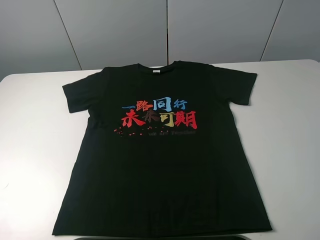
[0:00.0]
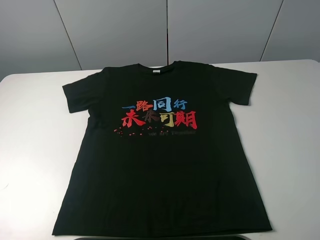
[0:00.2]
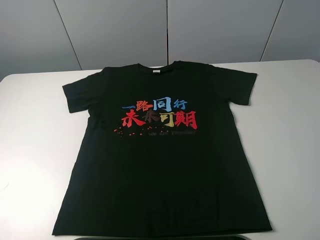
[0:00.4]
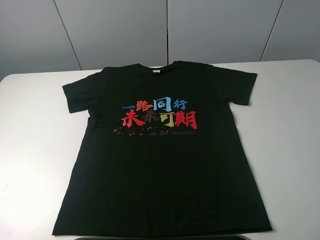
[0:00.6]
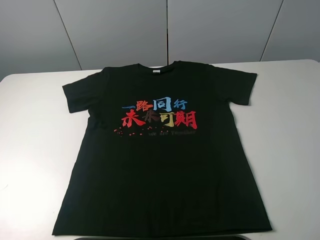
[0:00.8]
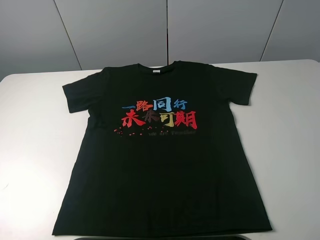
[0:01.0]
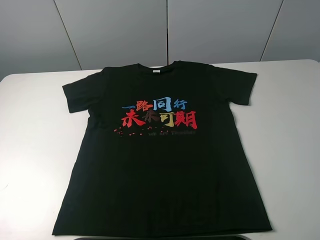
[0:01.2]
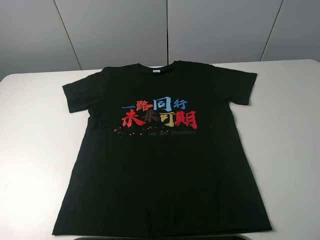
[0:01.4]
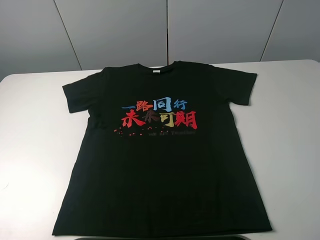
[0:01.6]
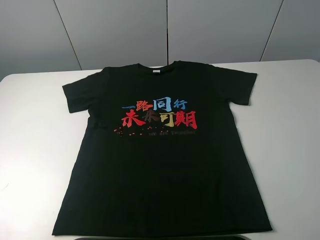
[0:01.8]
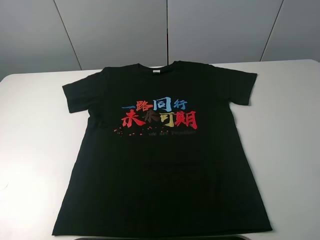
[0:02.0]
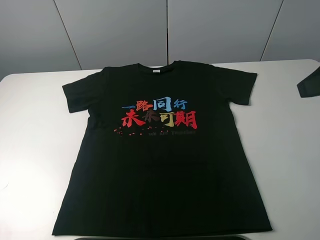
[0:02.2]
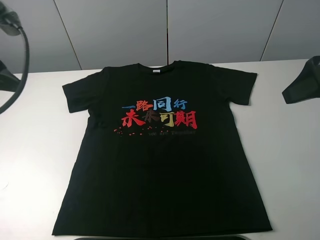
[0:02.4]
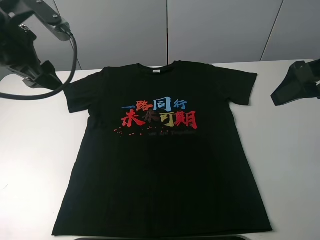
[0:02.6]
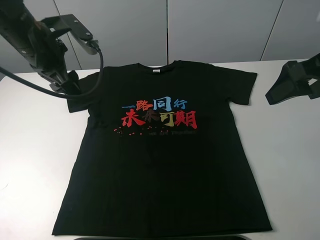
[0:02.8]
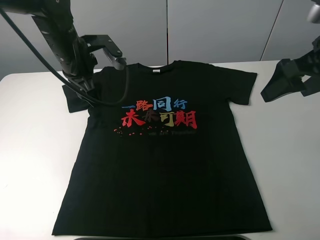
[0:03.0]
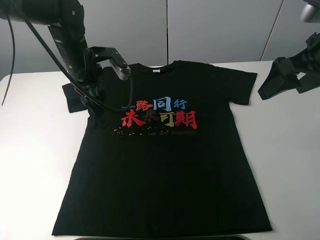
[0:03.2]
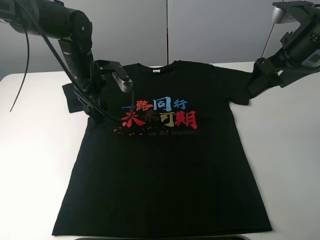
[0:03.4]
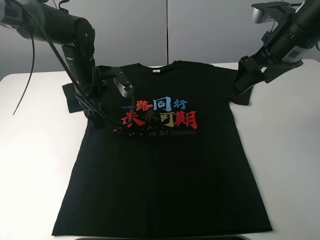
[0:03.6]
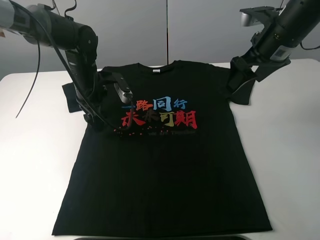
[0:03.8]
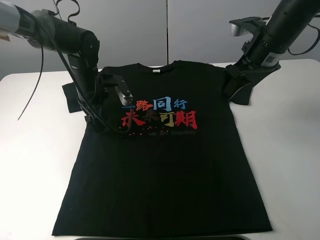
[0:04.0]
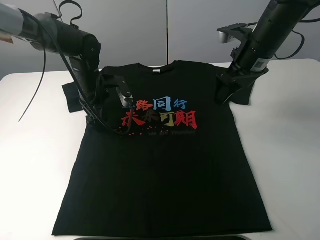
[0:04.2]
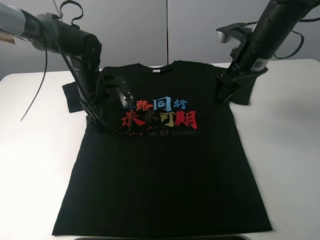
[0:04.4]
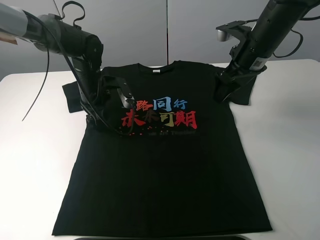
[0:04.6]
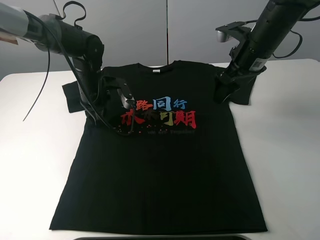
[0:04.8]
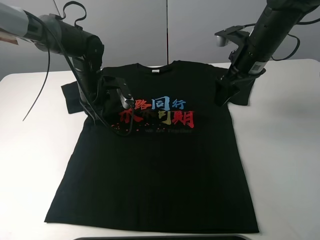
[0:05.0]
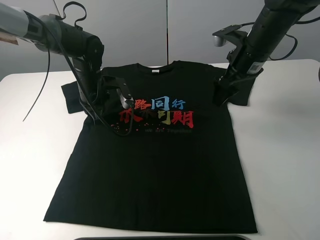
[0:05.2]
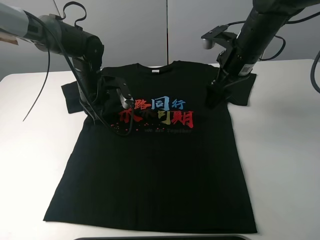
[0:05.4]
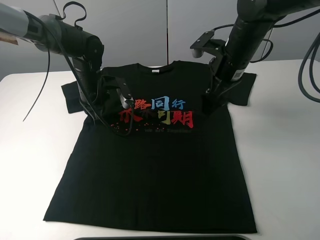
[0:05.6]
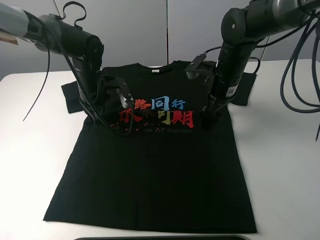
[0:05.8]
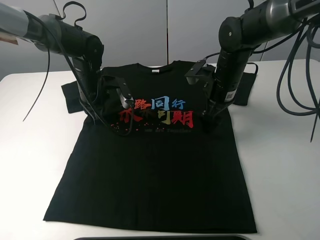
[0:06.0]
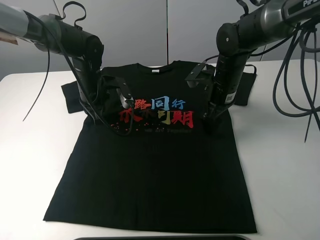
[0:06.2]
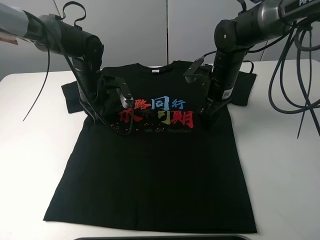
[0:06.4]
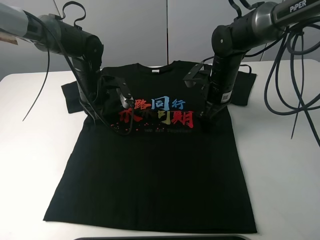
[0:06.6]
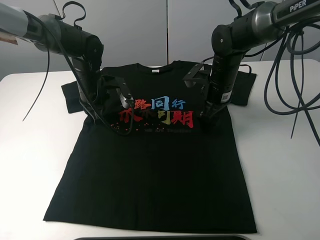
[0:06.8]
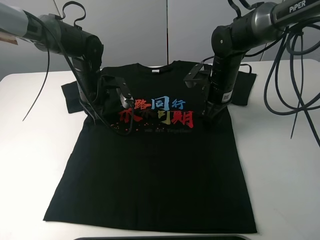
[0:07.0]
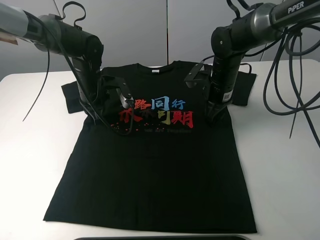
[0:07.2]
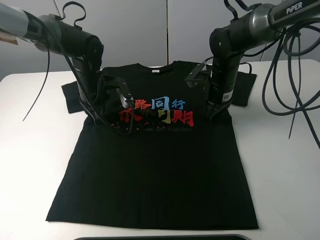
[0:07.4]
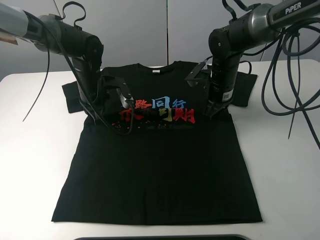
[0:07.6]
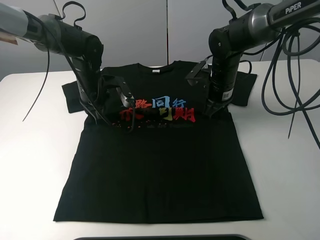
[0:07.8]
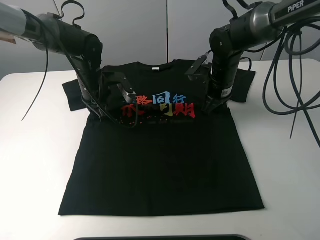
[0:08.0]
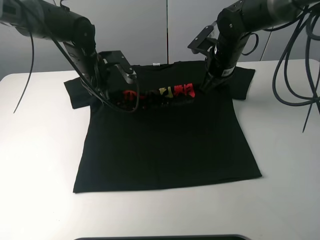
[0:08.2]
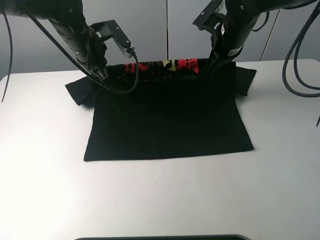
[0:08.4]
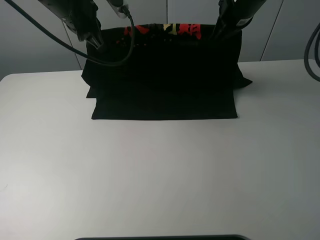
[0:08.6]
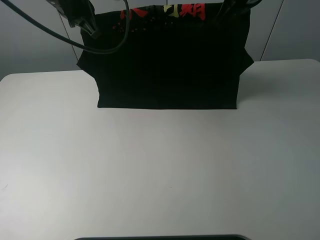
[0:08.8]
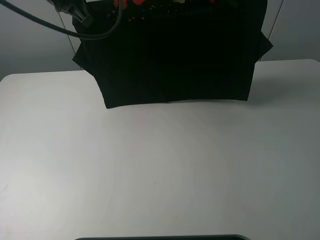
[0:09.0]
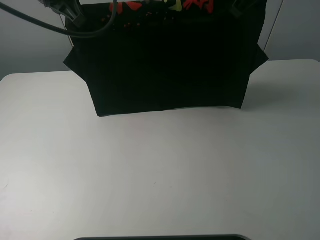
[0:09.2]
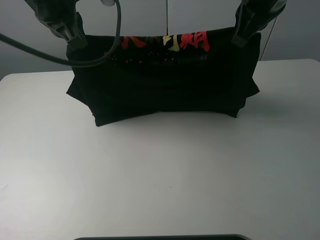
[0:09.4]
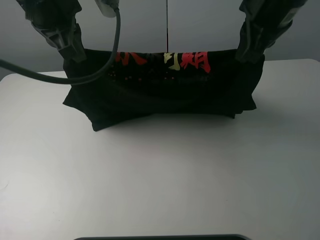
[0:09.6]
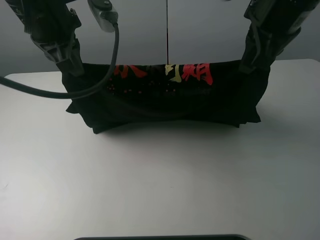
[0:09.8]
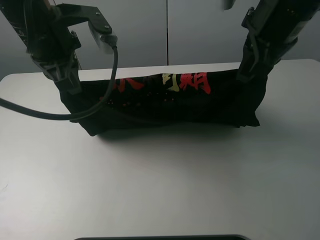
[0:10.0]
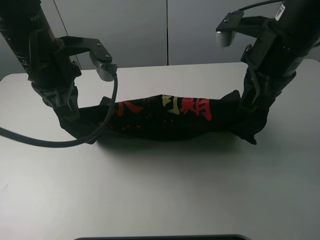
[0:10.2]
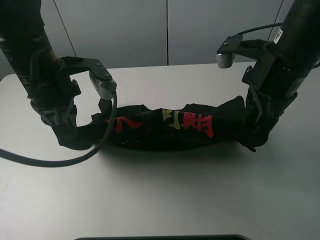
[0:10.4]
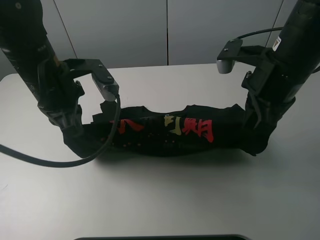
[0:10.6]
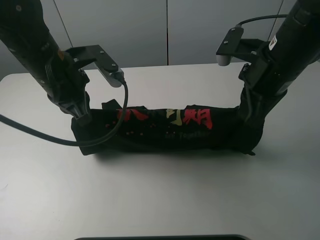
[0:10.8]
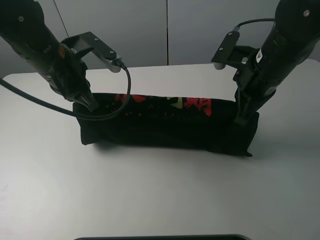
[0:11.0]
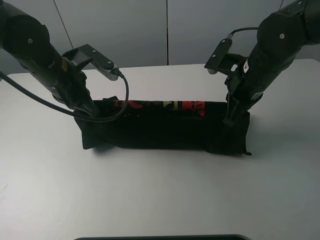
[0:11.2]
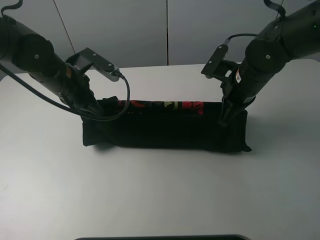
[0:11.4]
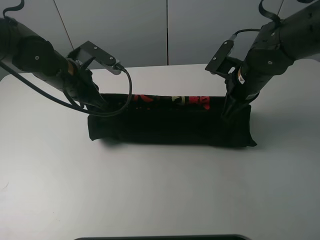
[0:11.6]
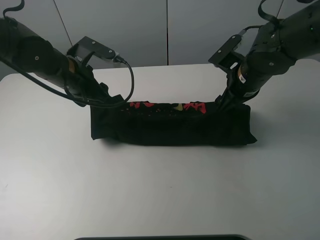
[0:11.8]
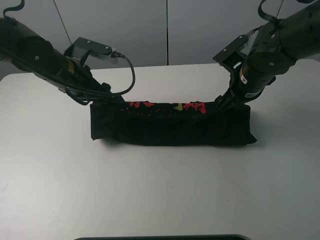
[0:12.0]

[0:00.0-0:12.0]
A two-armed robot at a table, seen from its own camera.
Task of the whole recording: fold the clothes on the table.
Step, 0:00.0 to 0:08.0: Lift the black T-shirt with the left gripper.
0:01.6 to 0:03.0: The right gripper travels forward by about 20 cm. Meanwhile the left gripper is displaced forward, to the right and downward by approximately 40 cm.
0:03.0 to 0:04.4: The right gripper shifts approximately 15 cm forward, to the left and downward. Meanwhile the left gripper travels downward by about 10 cm.
0:04.4 to 0:06.0: The left gripper closes up; the right gripper travels downward by some 10 cm.
0:06.0 to 0:07.6: The right gripper closes.
0:07.6 to 0:09.0: Both grippers move upward, roughly 25 cm.
0:09.0 to 0:10.4: The grippers both shift backward and downward by approximately 15 cm.
0:10.4 to 0:12.0: The right gripper heads downward and forward, covering approximately 15 cm, and opens; the left gripper goes some 10 cm forward and downward, and opens its fingers.

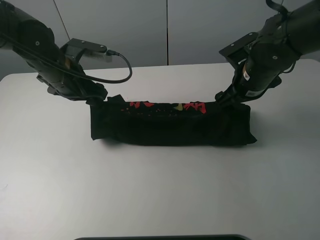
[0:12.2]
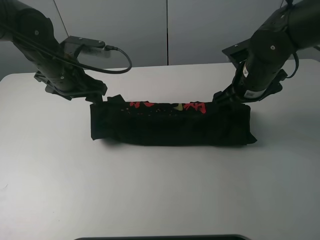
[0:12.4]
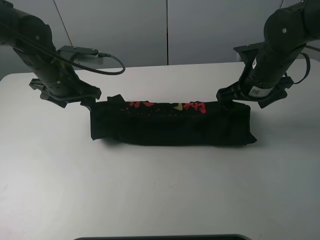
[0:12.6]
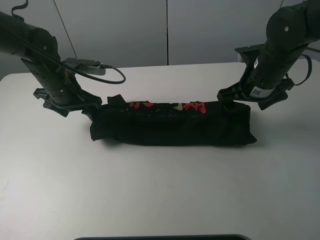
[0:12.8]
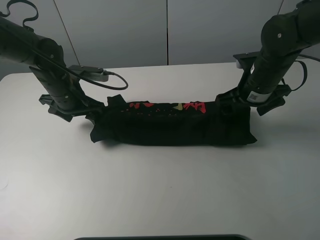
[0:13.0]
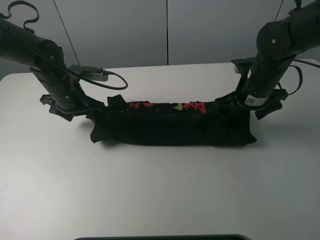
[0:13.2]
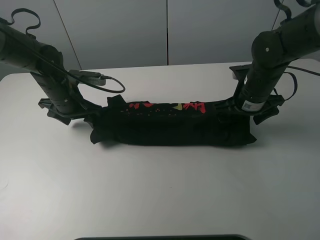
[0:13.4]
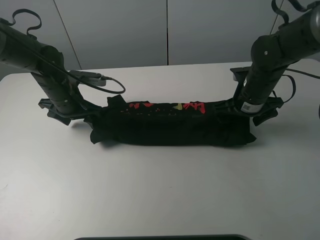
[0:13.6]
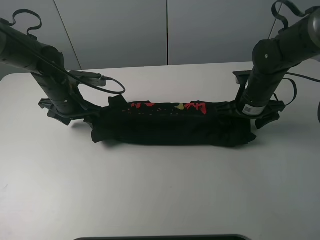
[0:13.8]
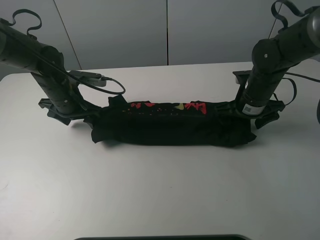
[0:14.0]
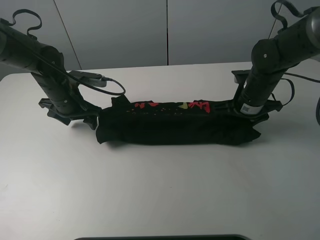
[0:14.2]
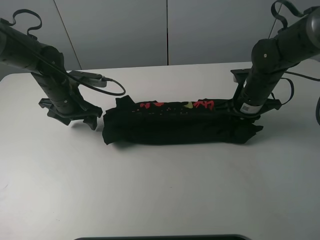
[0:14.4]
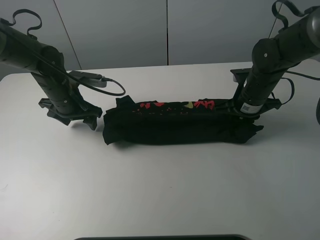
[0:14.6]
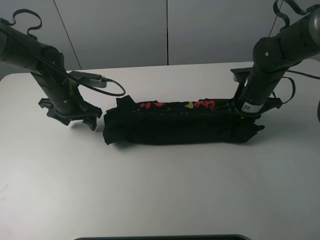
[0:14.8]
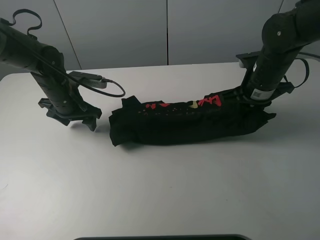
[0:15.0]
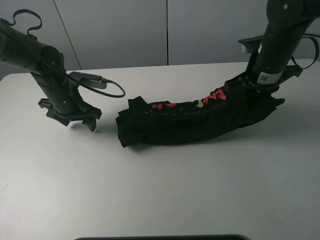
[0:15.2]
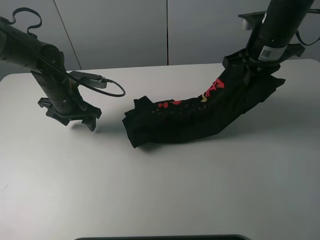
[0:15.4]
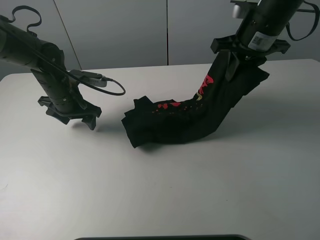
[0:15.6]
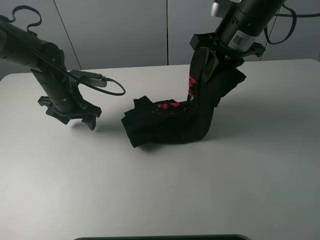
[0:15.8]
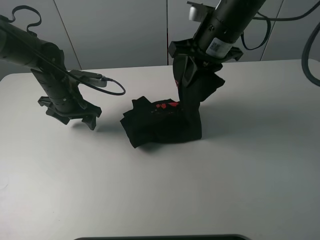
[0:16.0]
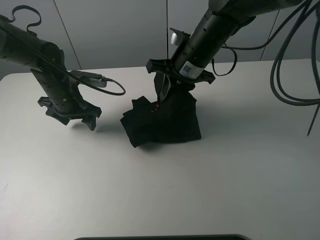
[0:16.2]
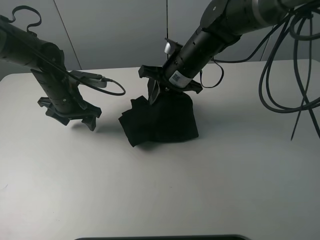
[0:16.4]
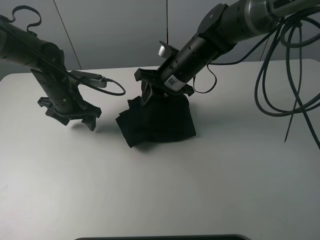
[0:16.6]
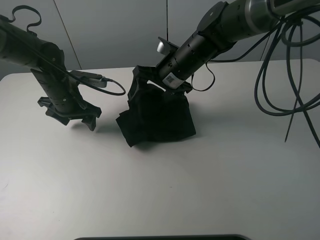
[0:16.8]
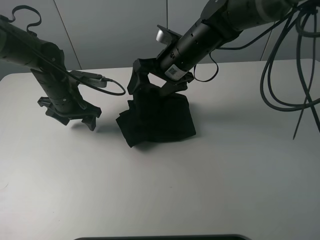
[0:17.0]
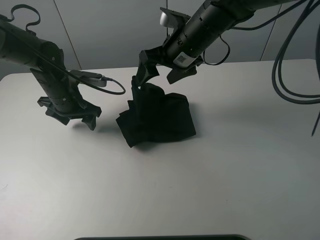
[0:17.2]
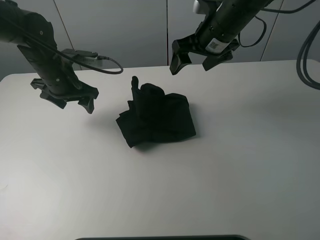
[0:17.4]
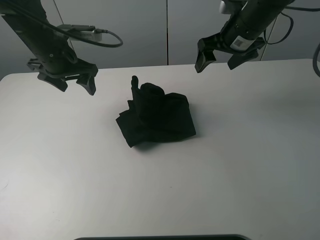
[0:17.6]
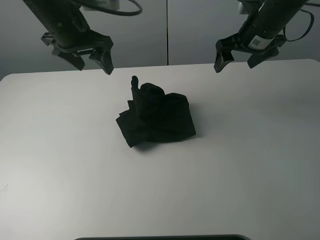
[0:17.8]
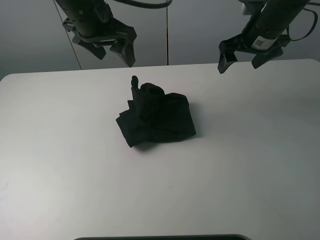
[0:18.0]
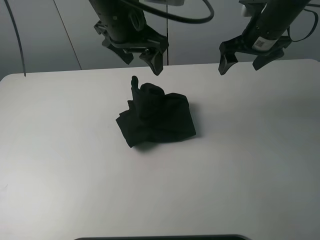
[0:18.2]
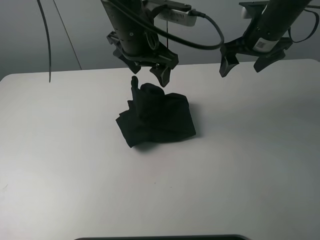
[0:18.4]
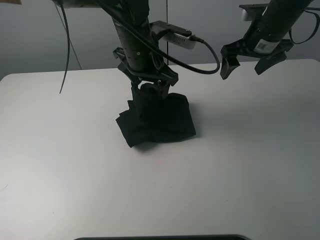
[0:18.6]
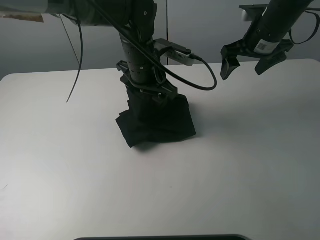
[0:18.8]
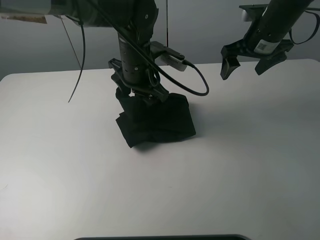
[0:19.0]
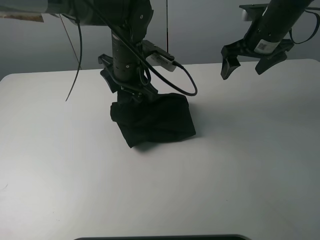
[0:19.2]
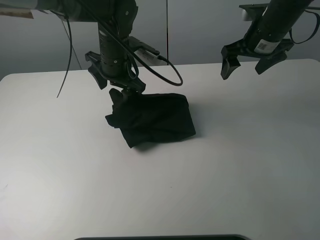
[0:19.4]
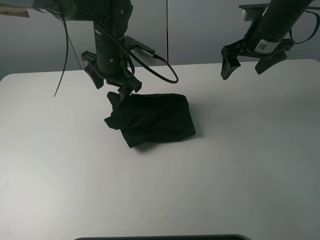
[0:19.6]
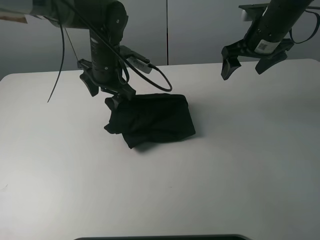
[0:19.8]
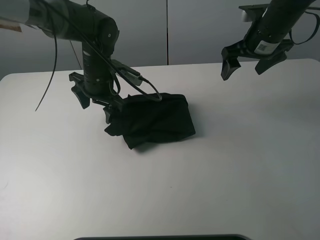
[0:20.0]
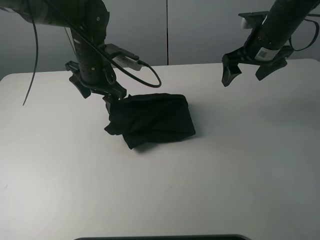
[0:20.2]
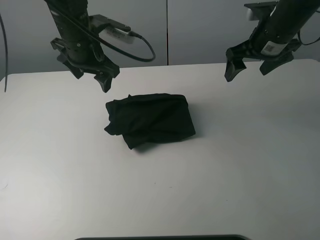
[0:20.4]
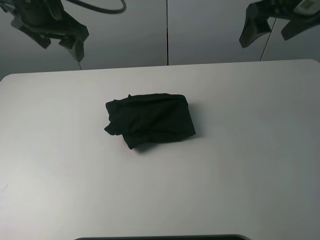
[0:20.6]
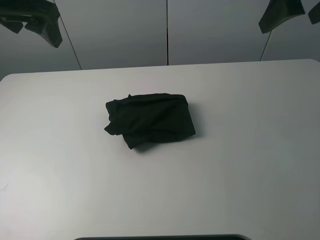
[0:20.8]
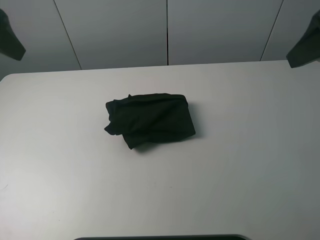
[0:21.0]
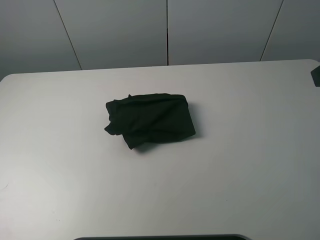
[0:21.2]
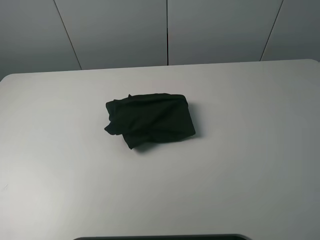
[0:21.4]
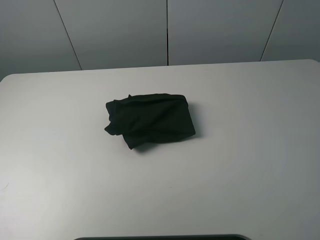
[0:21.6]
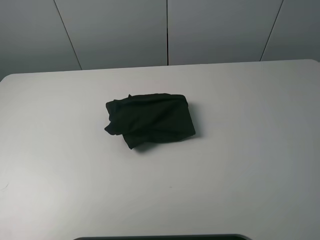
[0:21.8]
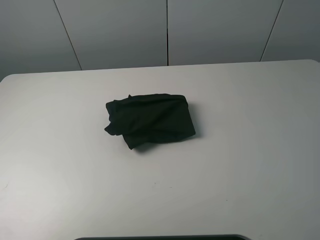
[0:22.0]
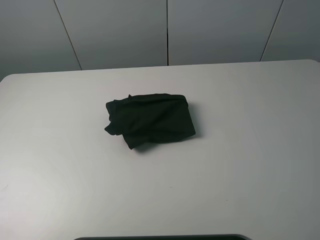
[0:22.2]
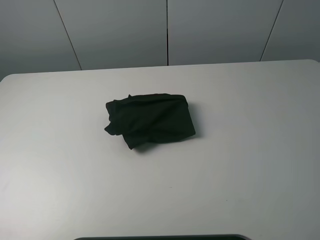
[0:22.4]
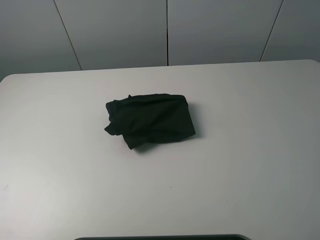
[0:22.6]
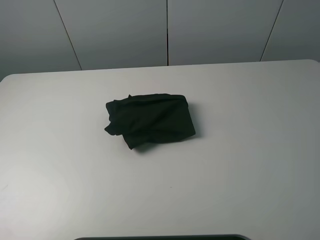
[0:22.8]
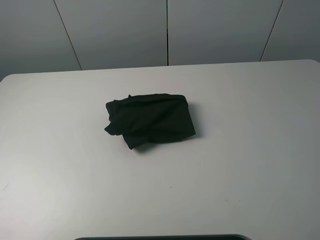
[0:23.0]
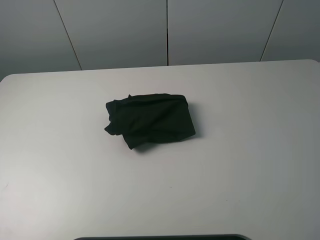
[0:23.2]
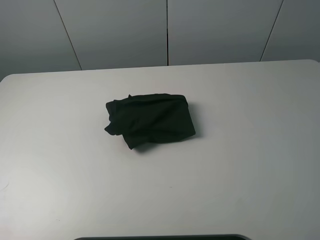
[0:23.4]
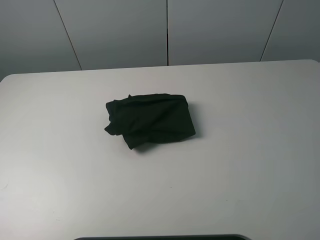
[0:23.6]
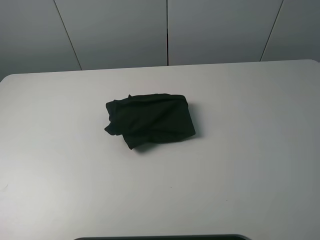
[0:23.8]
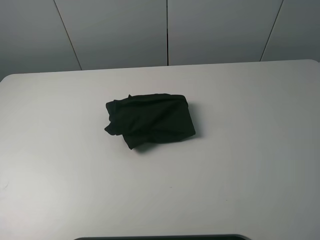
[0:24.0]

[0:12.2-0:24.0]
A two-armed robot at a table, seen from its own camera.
Task of the whole recording: fold the clothes on the table.
Step, 0:12.4 to 0:14.4: Grasp the black T-shirt with the right gripper.
Step, 0:14.6 to 0:17.0: Fold the black T-shirt from right to left with right gripper.
Step, 0:17.2 to 0:19.6: Use the left gripper to tidy up the clothes.
0:12.2 to 0:13.6: The left gripper travels downward by some 10 cm; the right gripper ends up roughly 5 cm from where it was.
0:13.6 to 0:15.2: The right gripper heads upward, covering about 10 cm, and closes its fingers.
0:15.2 to 0:16.6: The right gripper shifts some 15 cm to the left, and opens up.
0:16.6 to 0:18.2: The left gripper travels upward and to the right by about 25 cm. The right gripper heads to the right and upward, covering about 20 cm, and opens its fingers.
0:18.2 to 0:19.6: The left gripper goes roughly 10 cm downward and forward.
0:19.6 to 0:21.0: The right gripper travels backward and upward by some 25 cm. Meanwhile the left gripper travels upward, to the left and backward by about 30 cm.
0:21.0 to 0:22.6: The left gripper is displaced backward, to the left and downward by approximately 25 cm. The right gripper goes roughly 20 cm backward.
